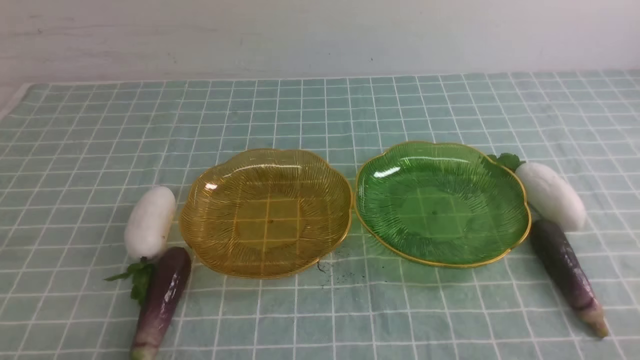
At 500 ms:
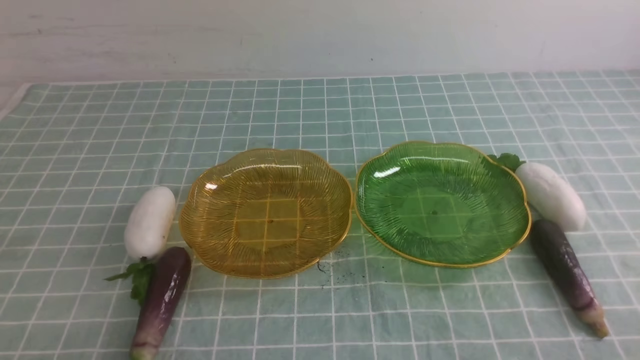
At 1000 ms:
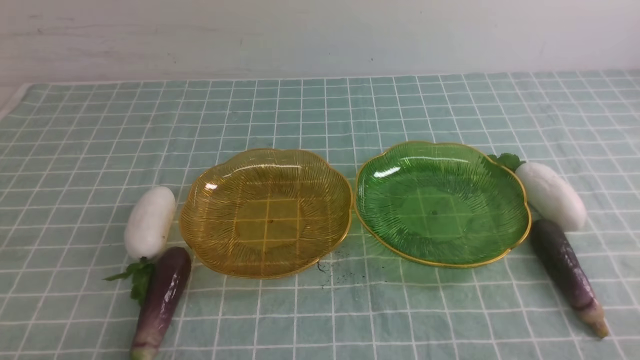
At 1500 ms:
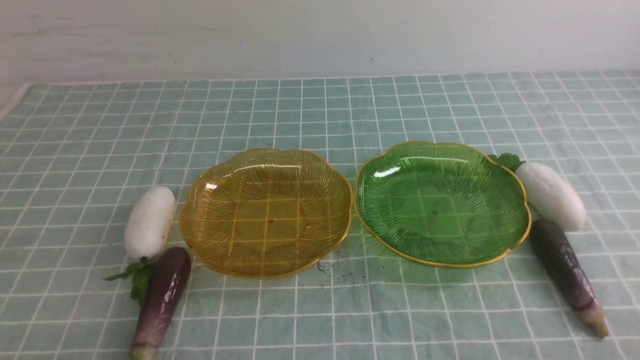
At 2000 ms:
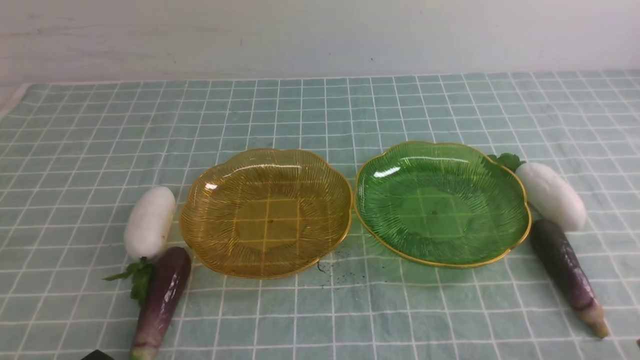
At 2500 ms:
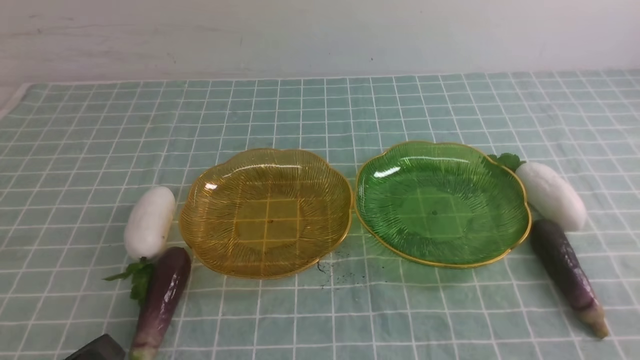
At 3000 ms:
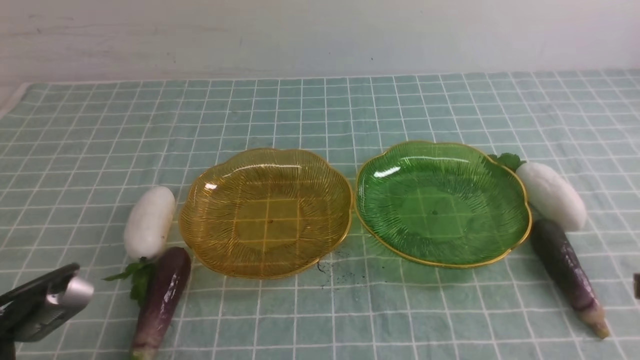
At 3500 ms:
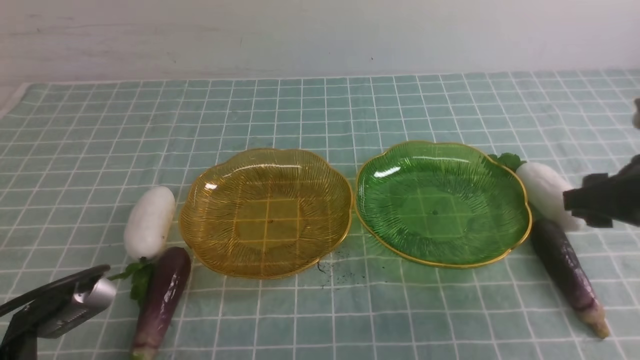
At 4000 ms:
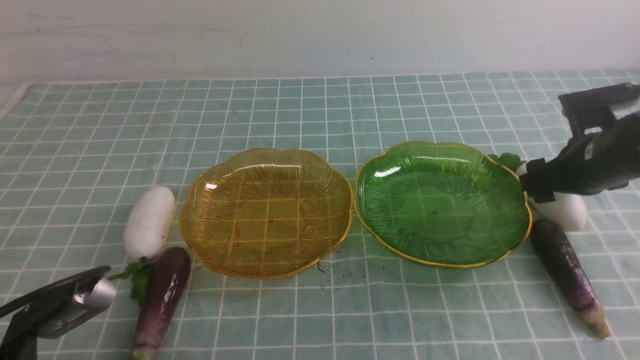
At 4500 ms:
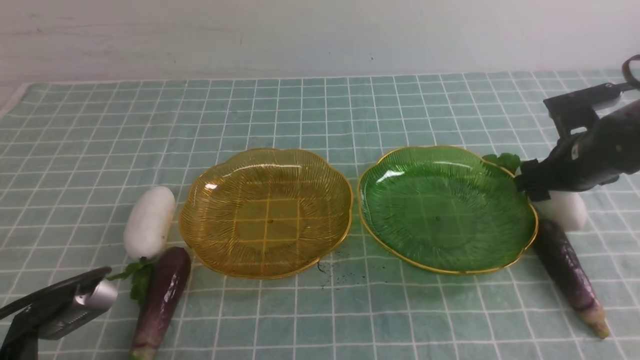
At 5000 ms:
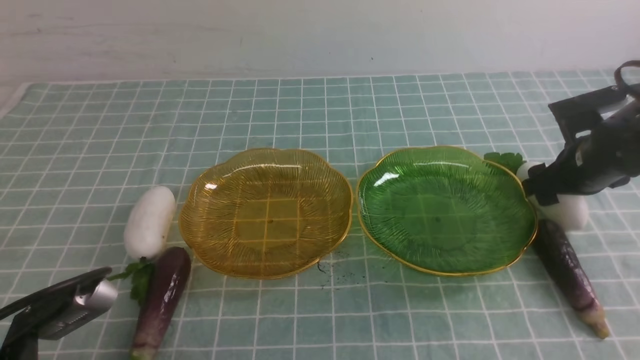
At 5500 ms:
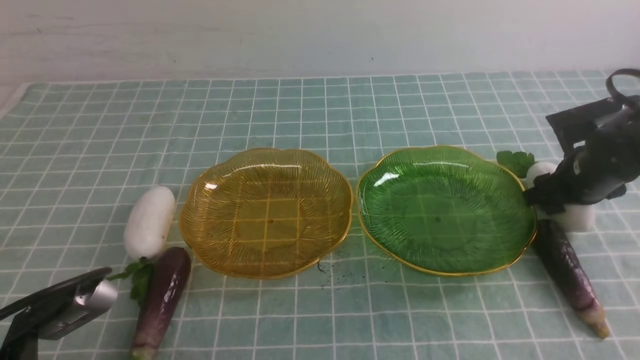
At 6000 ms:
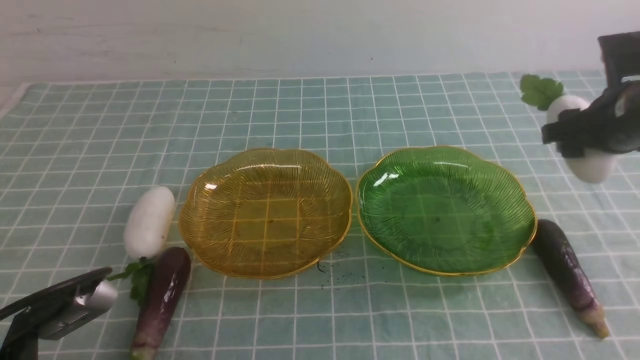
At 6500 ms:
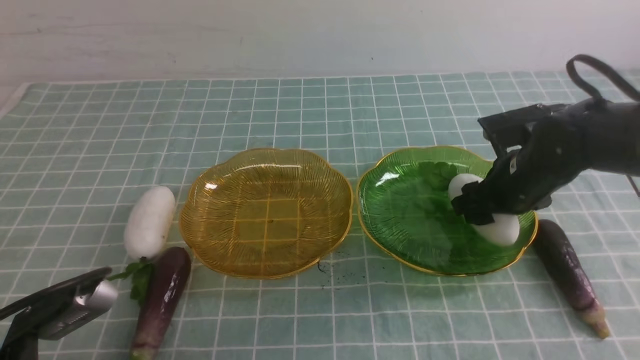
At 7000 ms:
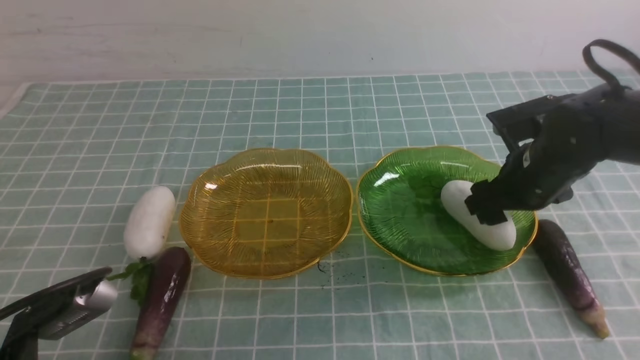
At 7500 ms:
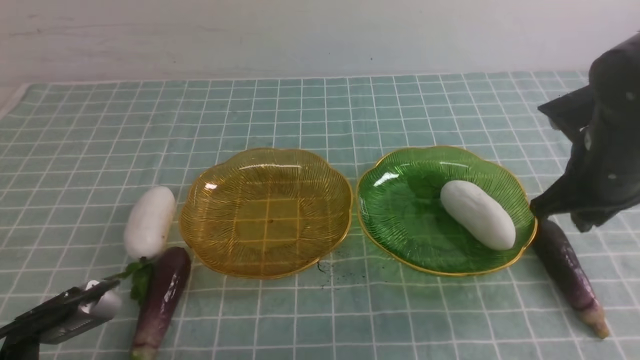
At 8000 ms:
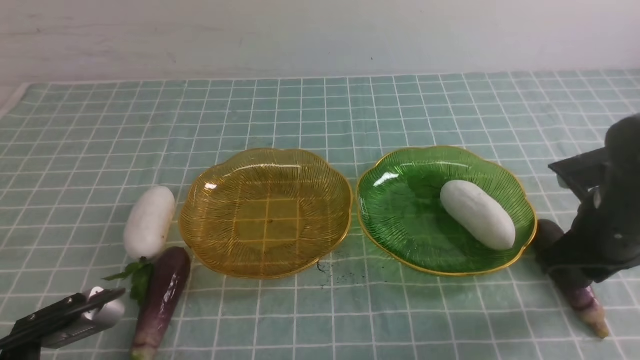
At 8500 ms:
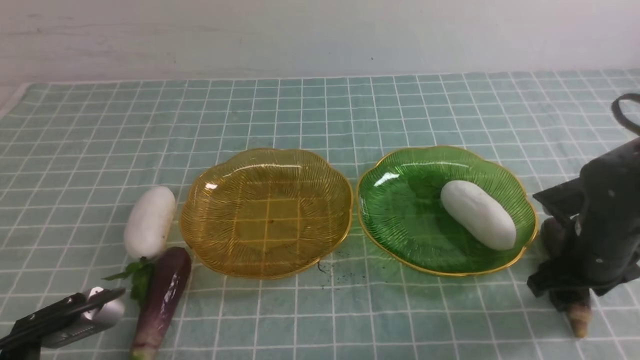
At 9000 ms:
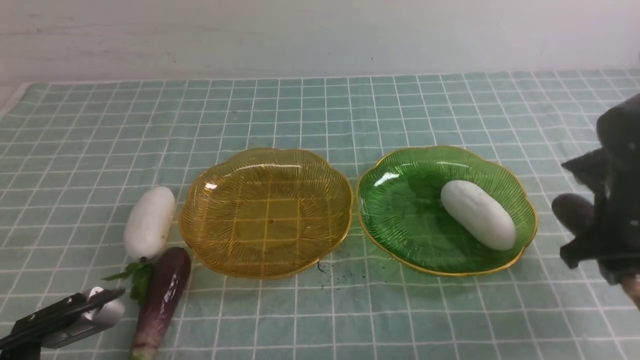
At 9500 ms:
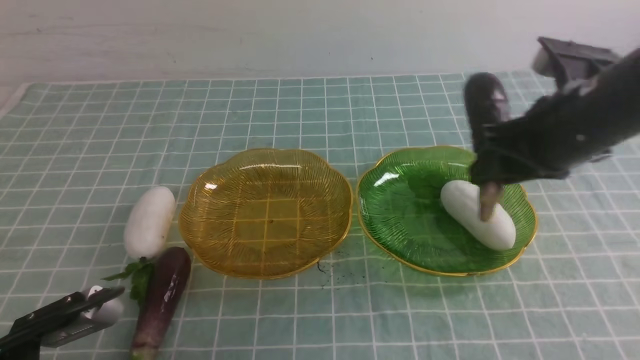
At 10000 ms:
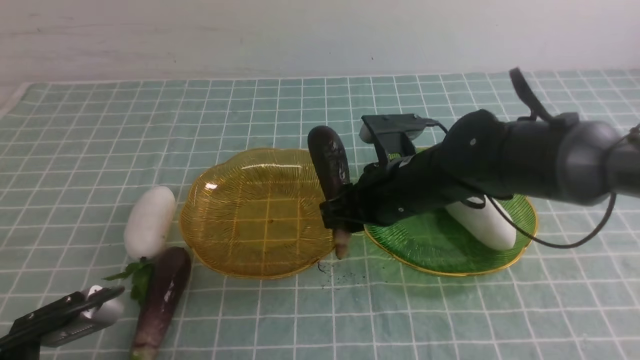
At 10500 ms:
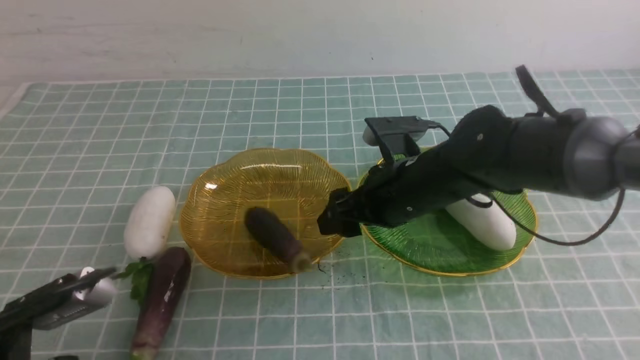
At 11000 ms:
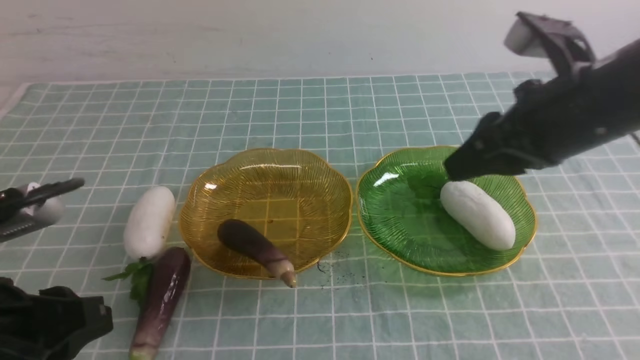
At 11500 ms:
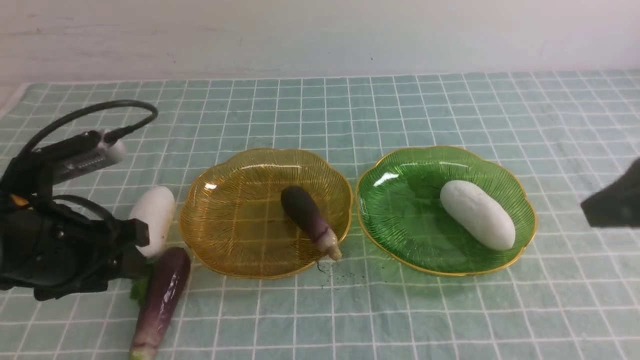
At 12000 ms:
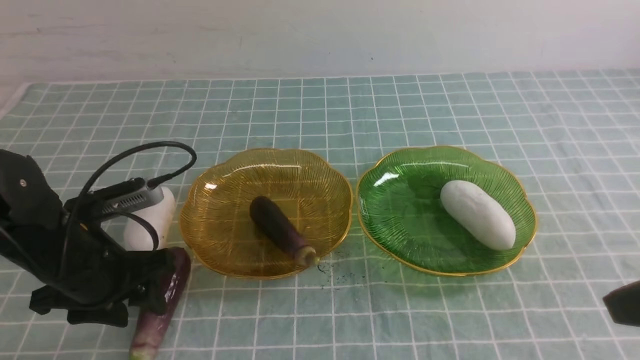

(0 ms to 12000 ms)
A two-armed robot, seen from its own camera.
Step, 0 ms - 6500 ms: use the right arm to grab a radish and put it into the right plate.
Step, 7500 ms - 10000 ms: use the right arm to grab an eggplant and put it into the left plate.
2000 ms - 4000 ms: The right gripper goes approximately 30 cm forward, and opens its fingers; the left gripper goes about 5 cm forward.
4000 ms - 6000 ms: There are only small adjustments of the grippers.
6000 ms - 8000 ms: The right gripper heads backward, covering about 10 cm, and closes.
8000 ms - 10000 ms: The right gripper moves to the left, roughly 15 cm.
10000 ms - 12000 ms: The left gripper shifts approximately 15 cm forward, and opens its fingers; the right gripper shifts about 30 cm backward, to the right and upward, and closes.

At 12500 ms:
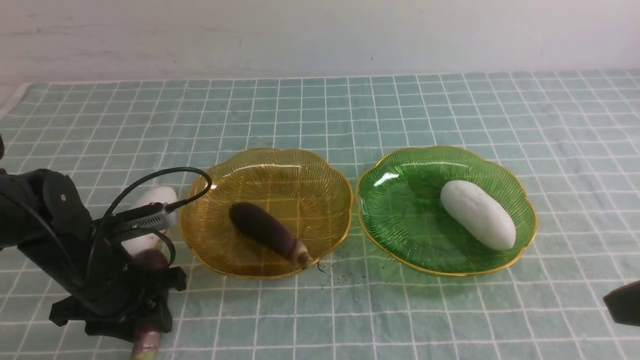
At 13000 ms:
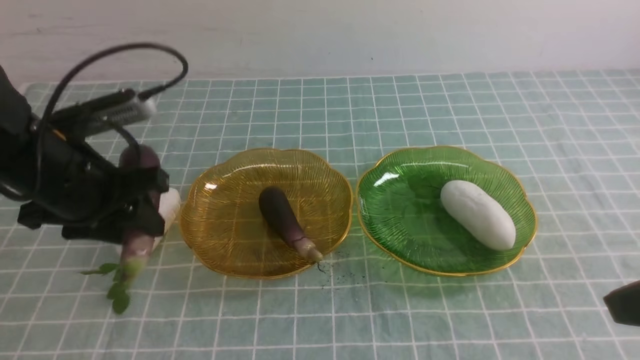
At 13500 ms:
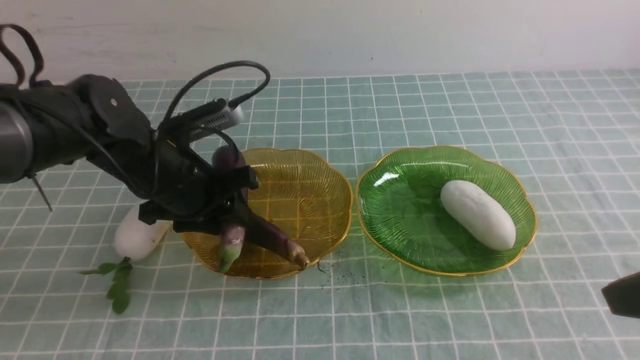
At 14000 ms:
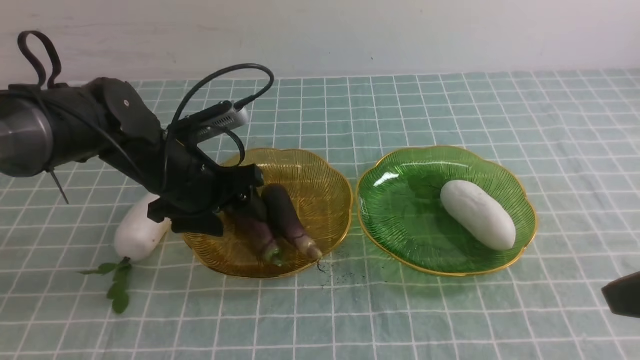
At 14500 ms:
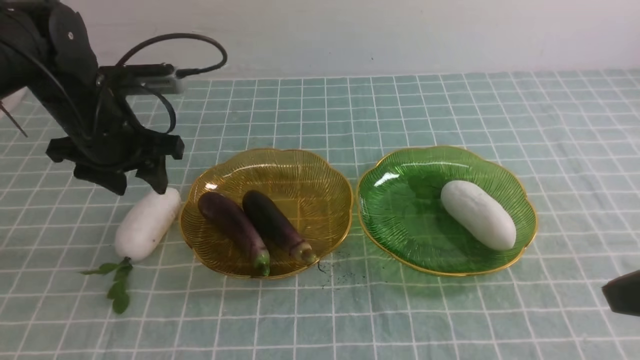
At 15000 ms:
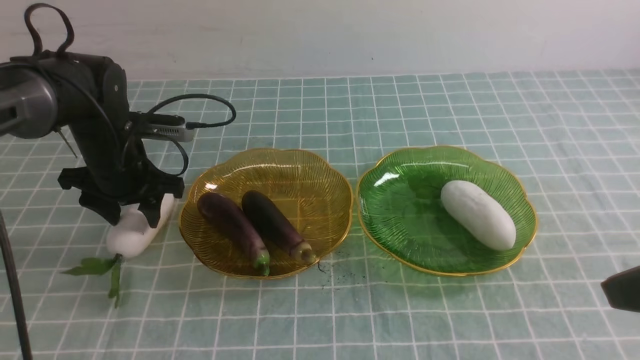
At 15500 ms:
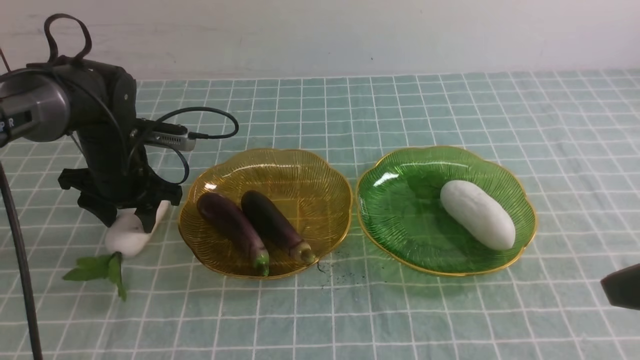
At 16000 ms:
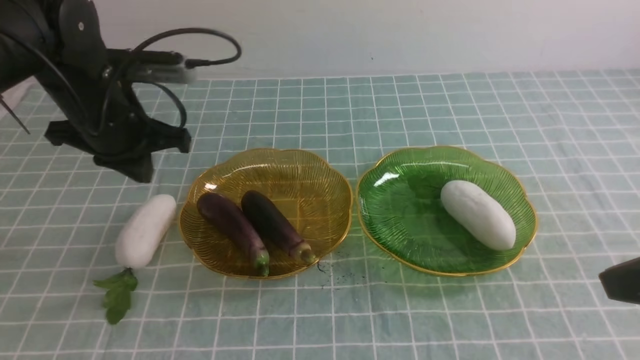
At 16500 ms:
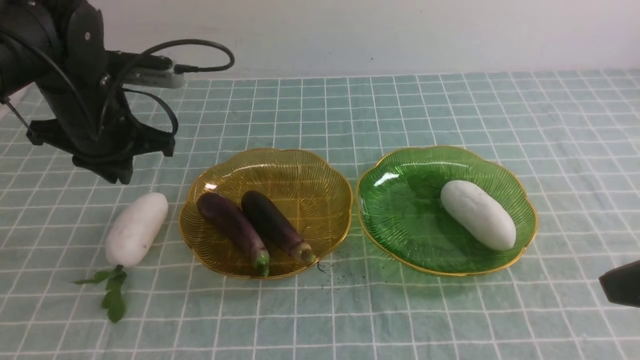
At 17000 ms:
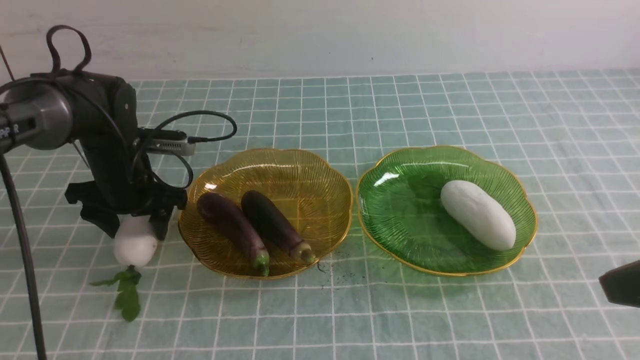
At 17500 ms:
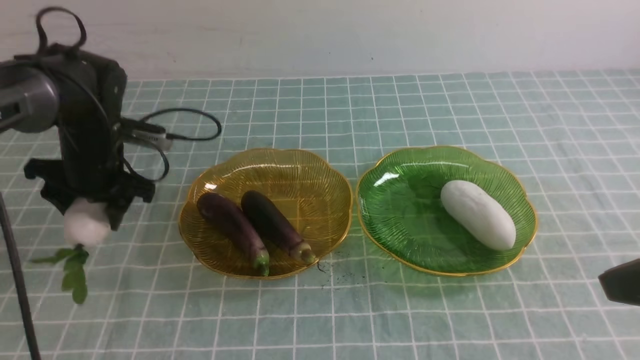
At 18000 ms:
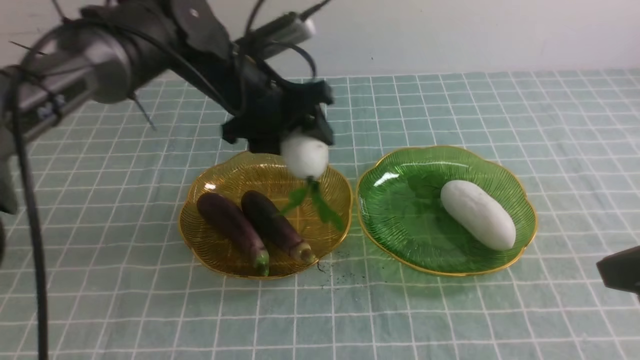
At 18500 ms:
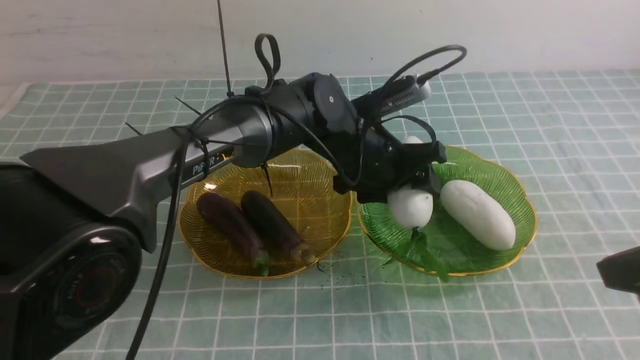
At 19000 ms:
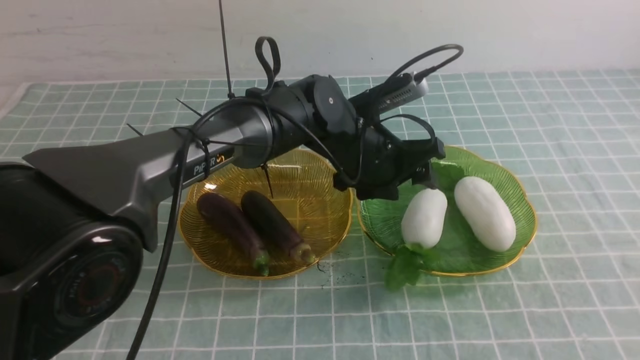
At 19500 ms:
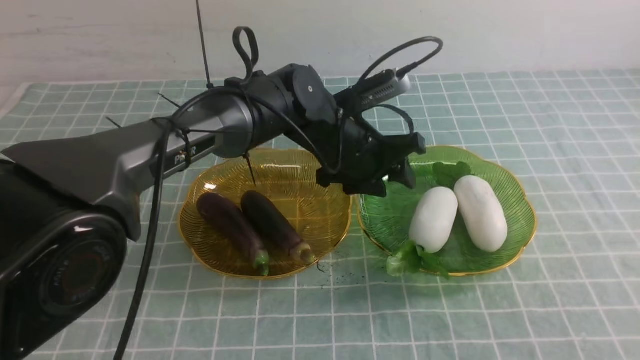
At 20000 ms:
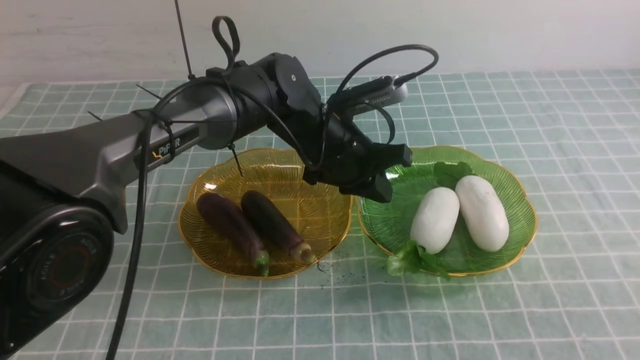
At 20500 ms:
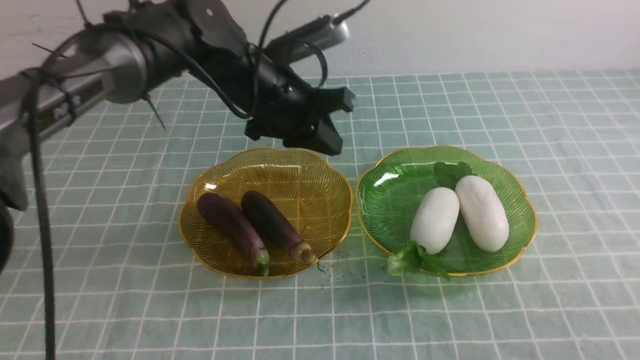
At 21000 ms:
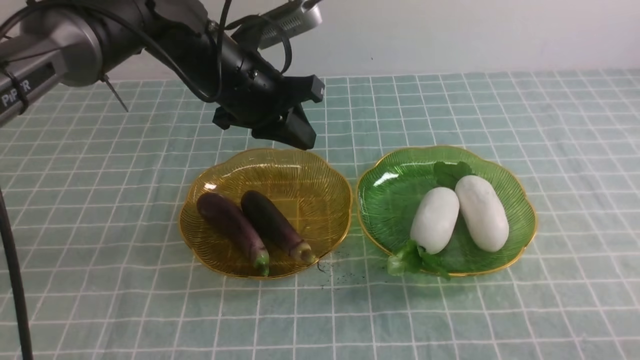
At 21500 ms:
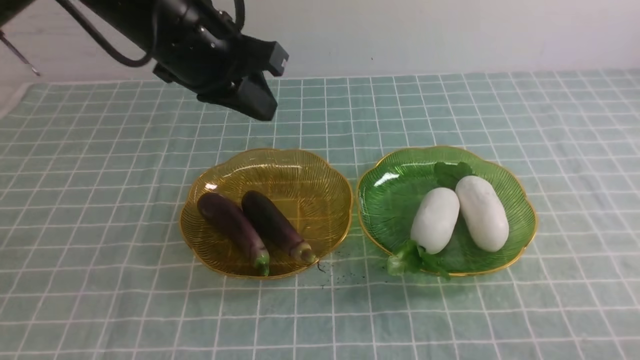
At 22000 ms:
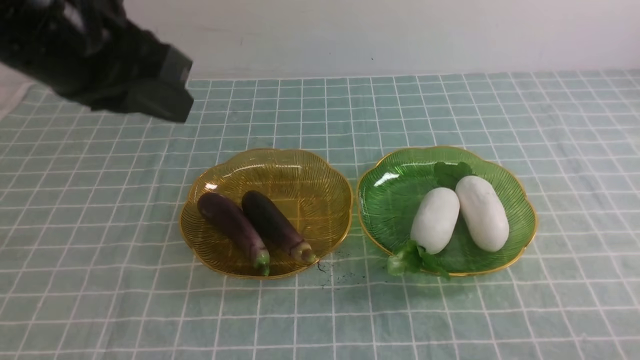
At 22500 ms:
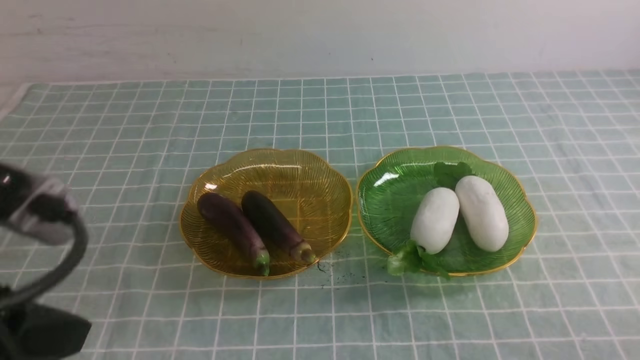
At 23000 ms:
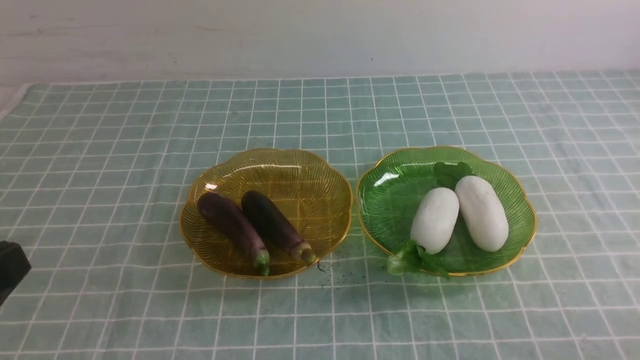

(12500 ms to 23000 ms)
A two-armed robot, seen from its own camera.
Step, 14500 ms - 18500 ms: use the left arm to grab a radish and put it into the right plate.
12500 ms - 14500 ms: The left gripper shifts roughly 15 cm forward and upward.
14500 ms - 16500 ms: The left gripper travels downward and back again, approximately 5 cm each way, and closes its fingers.
16500 ms - 19000 ms: The left gripper shifts roughly 25 cm to the right, and opens up; the right gripper shifts some 5 cm backward.
19000 ms - 21000 ms: The right gripper travels downward by about 15 cm; the left gripper shifts about 15 cm to the left and upward, and closes its fingers.
21000 ms - 23000 ms: The left gripper travels backward by roughly 35 cm.
